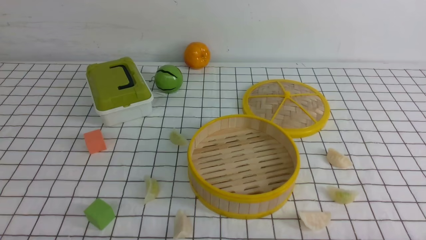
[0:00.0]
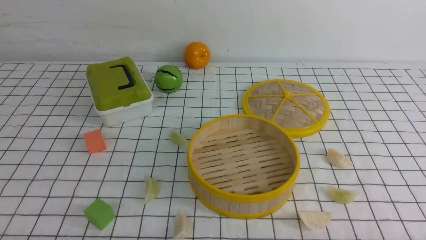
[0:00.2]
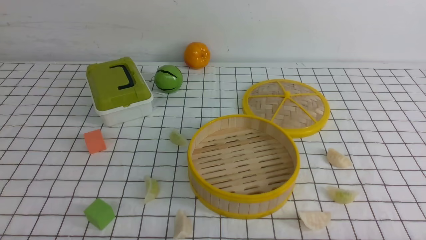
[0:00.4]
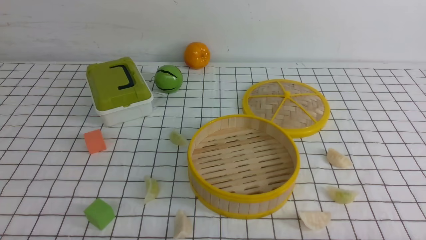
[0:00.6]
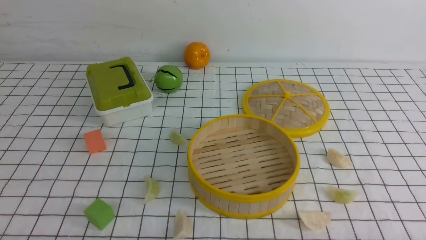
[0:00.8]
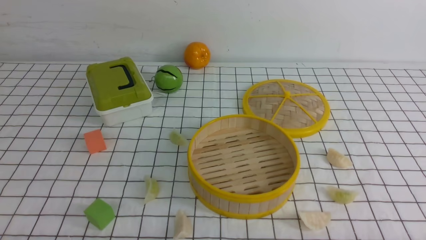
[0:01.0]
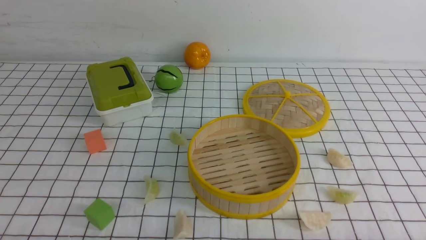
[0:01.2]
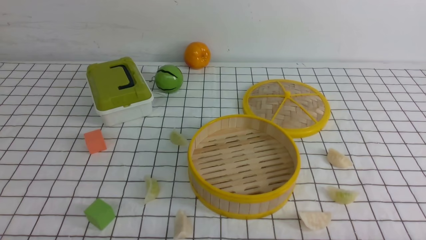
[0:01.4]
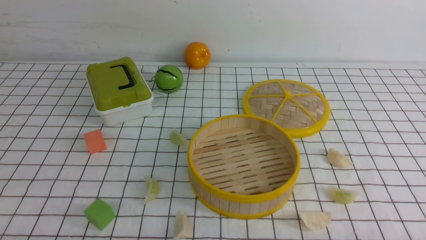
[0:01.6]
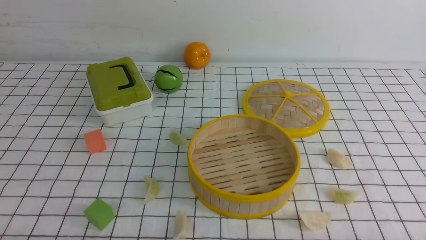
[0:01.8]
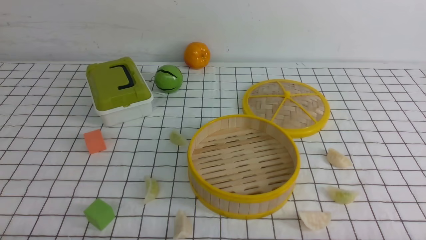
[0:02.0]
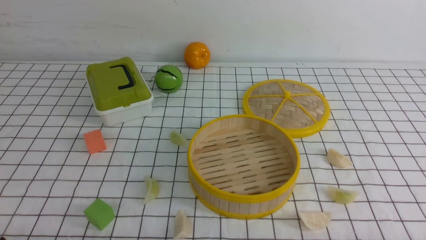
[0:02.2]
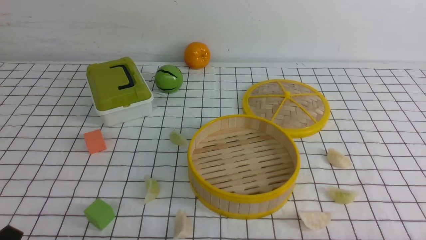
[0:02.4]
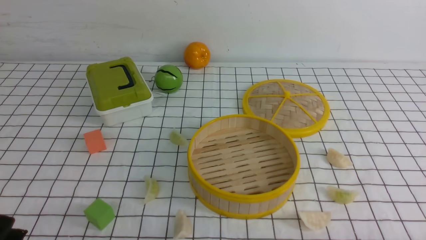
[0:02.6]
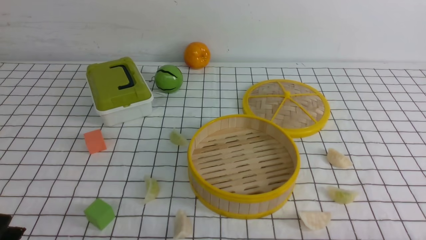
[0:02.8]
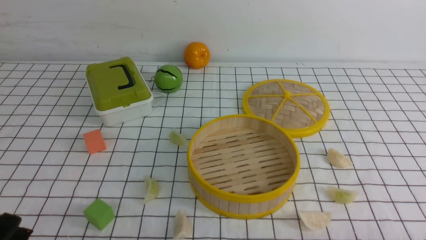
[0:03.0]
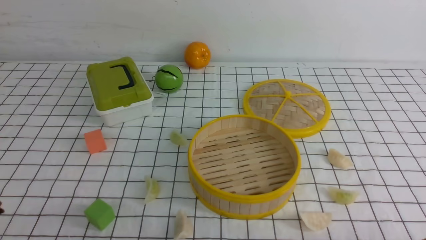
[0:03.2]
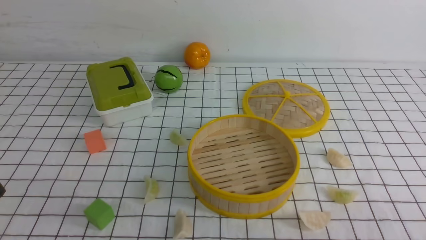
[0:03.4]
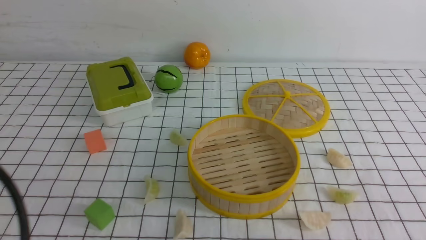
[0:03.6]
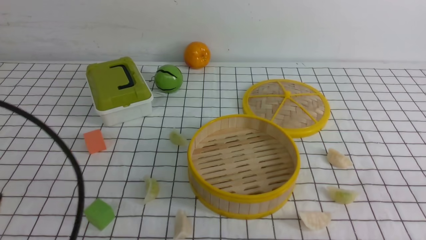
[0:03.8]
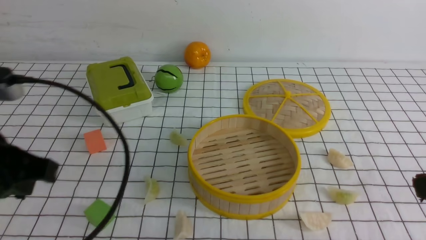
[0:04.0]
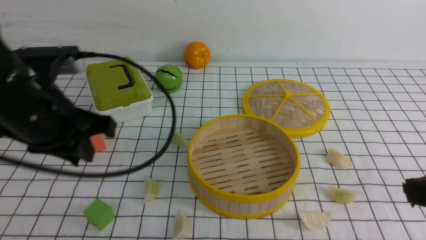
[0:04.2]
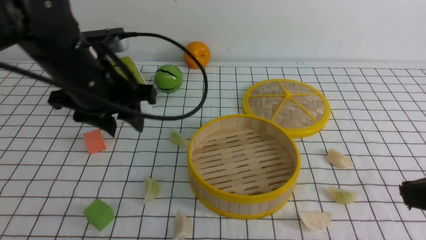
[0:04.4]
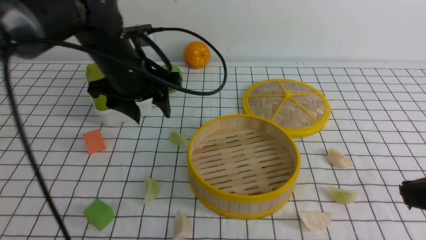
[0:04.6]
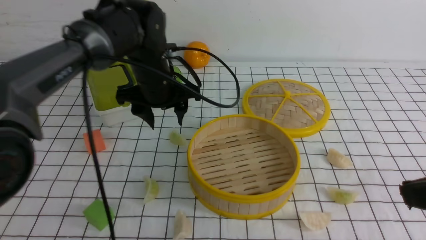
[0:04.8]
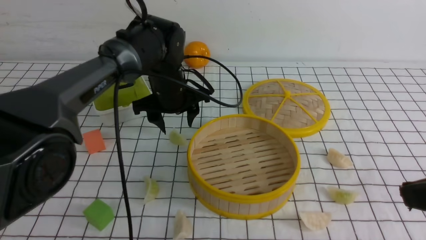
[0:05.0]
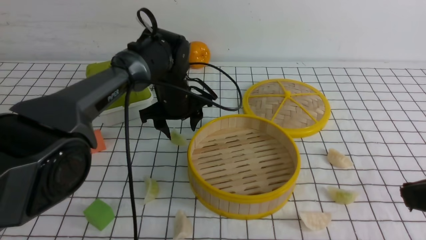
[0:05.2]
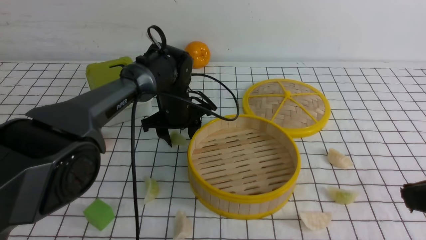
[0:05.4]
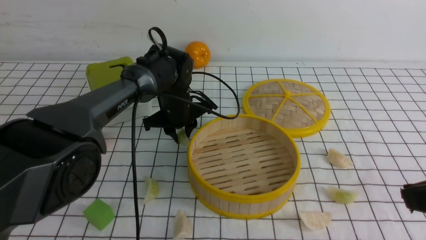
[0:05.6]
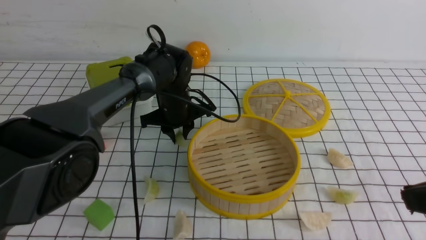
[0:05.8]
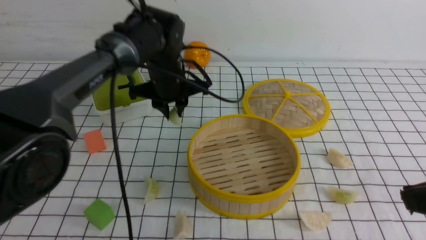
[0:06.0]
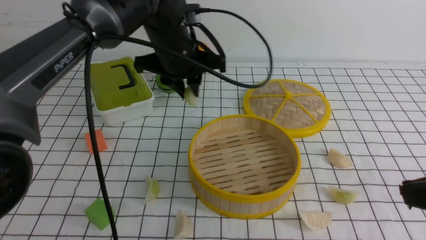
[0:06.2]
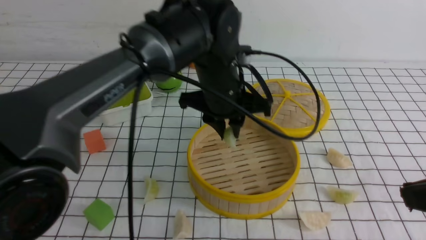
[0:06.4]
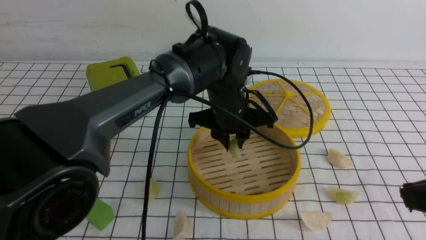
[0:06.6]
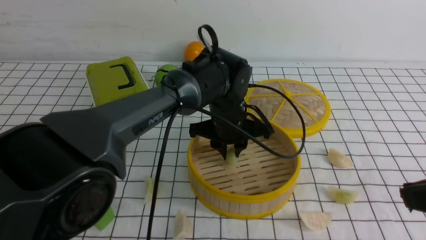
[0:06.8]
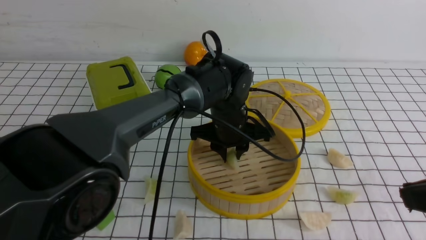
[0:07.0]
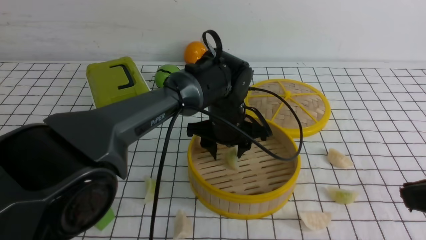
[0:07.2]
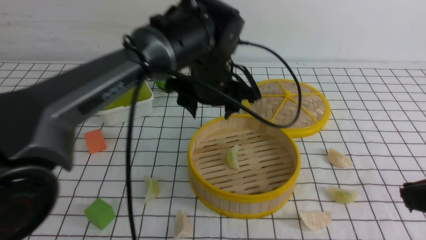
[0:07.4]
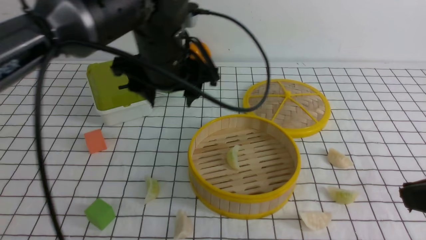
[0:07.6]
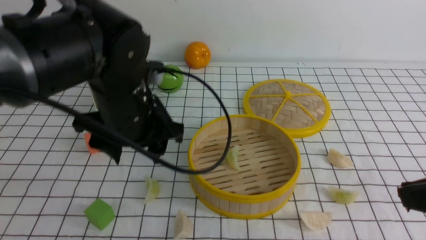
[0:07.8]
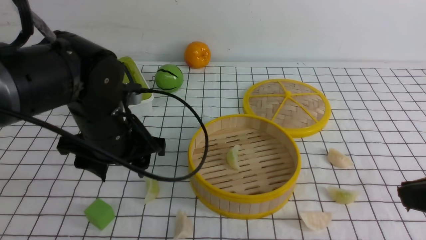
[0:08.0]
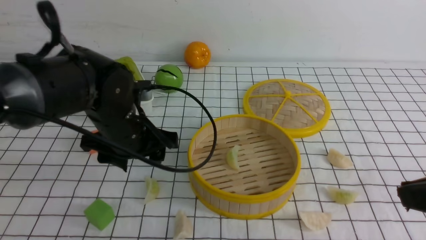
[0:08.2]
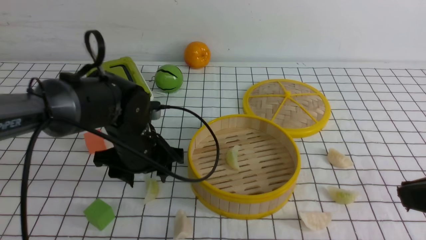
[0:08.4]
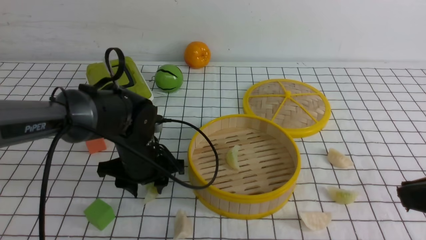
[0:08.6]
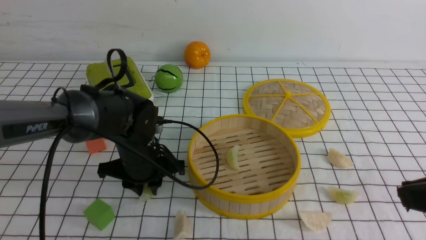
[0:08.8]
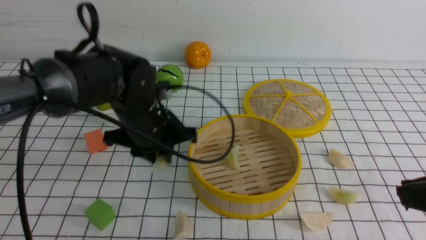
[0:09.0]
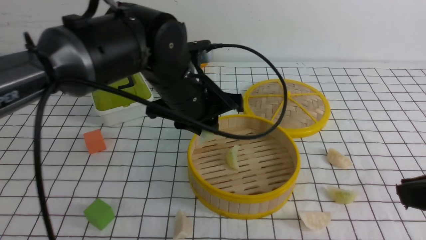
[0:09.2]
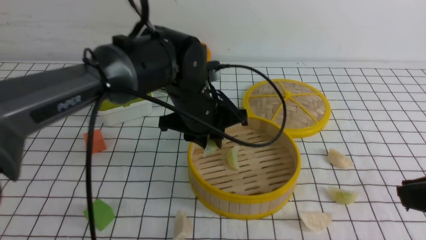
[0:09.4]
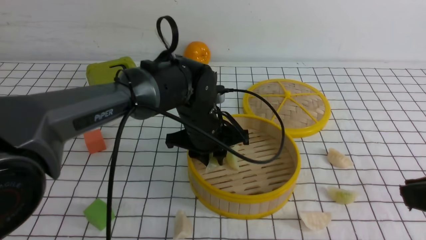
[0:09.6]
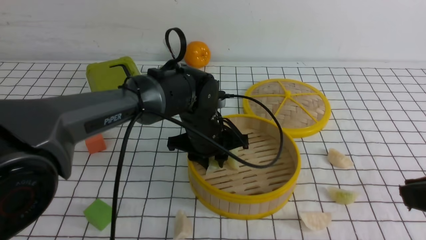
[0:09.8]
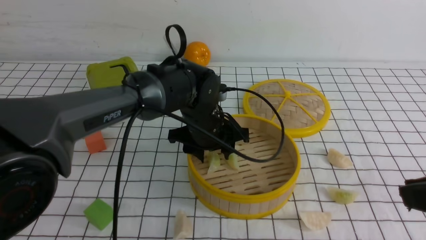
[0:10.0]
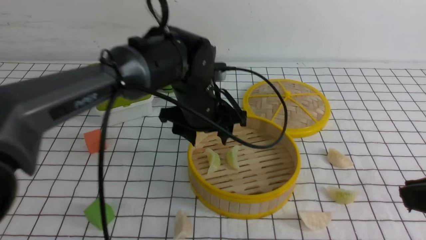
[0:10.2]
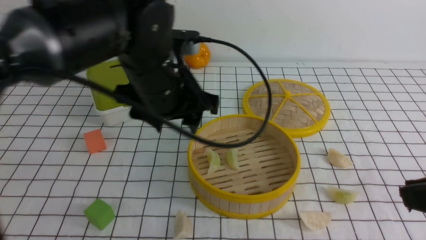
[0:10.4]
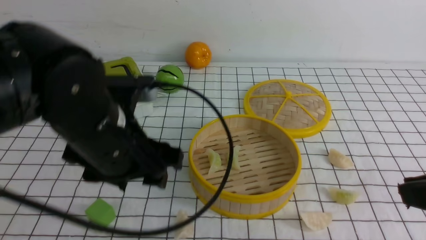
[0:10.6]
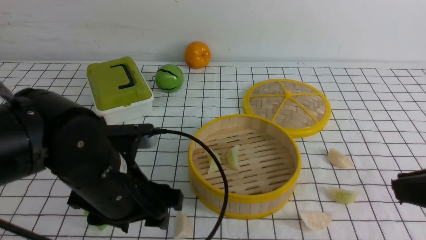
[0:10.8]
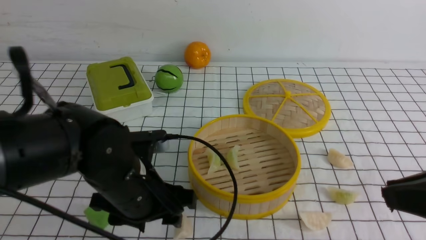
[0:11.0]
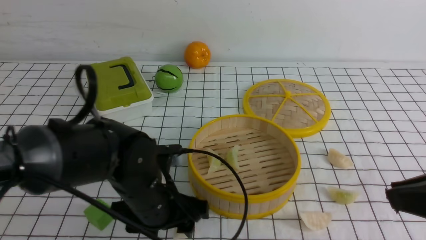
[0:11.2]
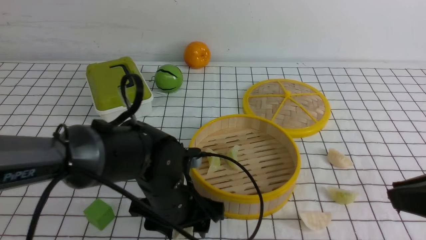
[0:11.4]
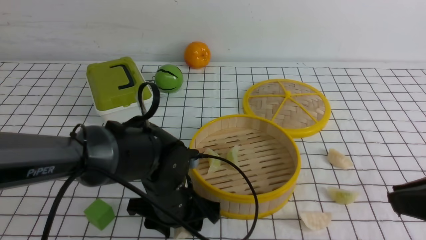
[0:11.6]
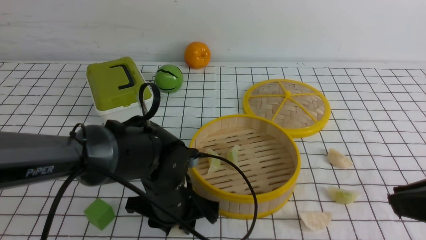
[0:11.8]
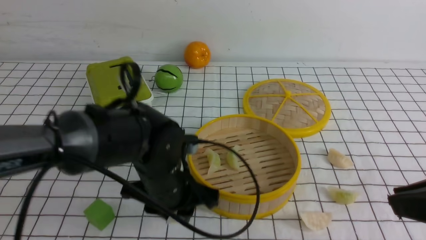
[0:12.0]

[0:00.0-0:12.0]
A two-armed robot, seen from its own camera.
Task of the whole recording: put the dumplings into the steamer on the table with the white tablecloth.
Step, 0:00.0 to 0:06.2: use the left arm to grab a dumpling.
Step, 0:06.4 to 0:07.4: use the left arm to put the dumpling into the steamer.
Step, 0:07.6 to 0:09.0: use the left arm to grab a dumpling.
Step, 0:09.2 to 0:10.6: use the left arm to put the dumpling into the steamer.
0:00.0 to 0:01.6: The two grippers keep their place.
0:01.6 to 0:03.0: The left gripper heads upward, covering approximately 5 cm.
0:03.0 to 0:04.4: The left gripper is displaced forward by some 30 cm, and closes, then reopens. The right gripper goes some 20 cm upward and forward, and closes.
0:04.4 to 0:06.0: The left gripper travels forward, to the right and downward by approximately 15 cm, and closes up.
0:06.0 to 0:07.6: The left gripper goes some 10 cm backward and upward, and opens.
0:07.6 to 0:09.0: The left gripper goes some 10 cm downward, and closes up.
0:09.0 to 0:10.4: The left gripper shifts some 5 cm upward, and opens up.
0:10.4 to 0:12.0: The left gripper moves downward, about 10 cm, and closes its fingers.

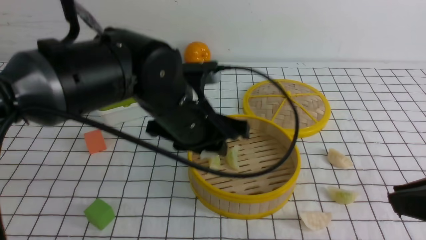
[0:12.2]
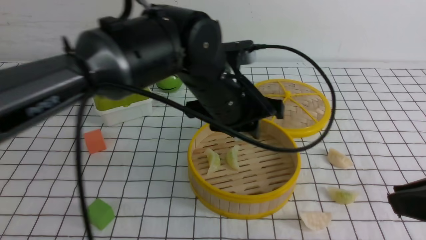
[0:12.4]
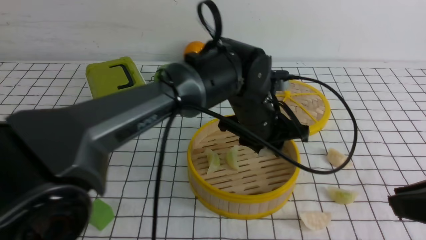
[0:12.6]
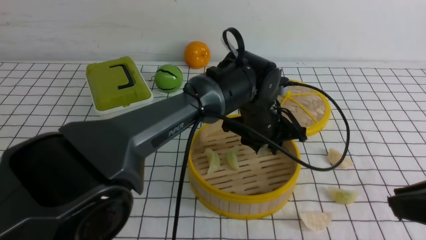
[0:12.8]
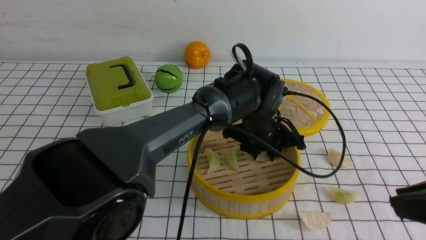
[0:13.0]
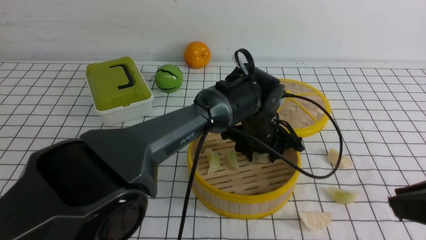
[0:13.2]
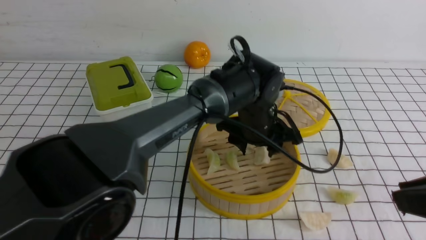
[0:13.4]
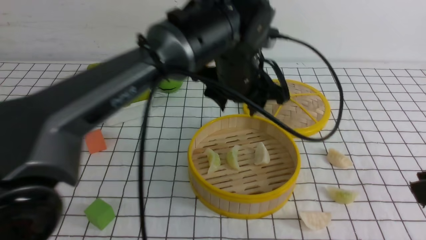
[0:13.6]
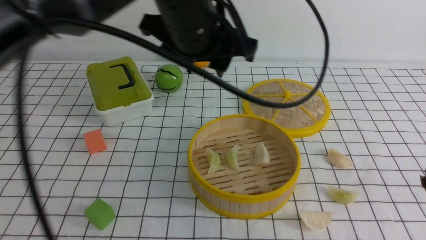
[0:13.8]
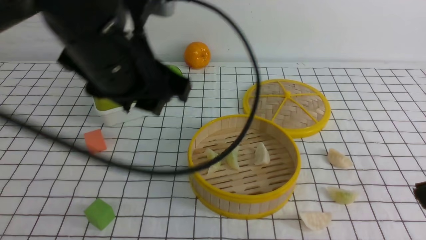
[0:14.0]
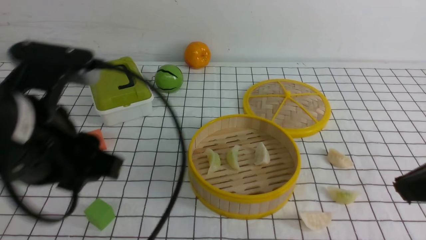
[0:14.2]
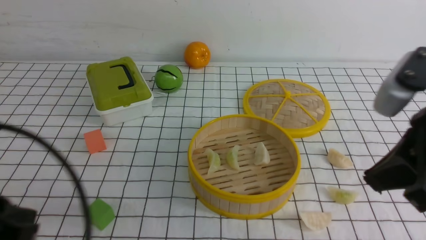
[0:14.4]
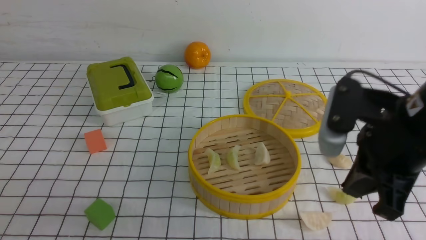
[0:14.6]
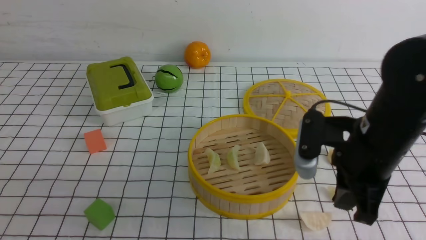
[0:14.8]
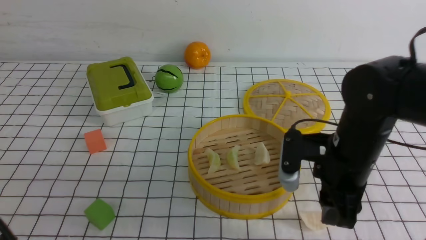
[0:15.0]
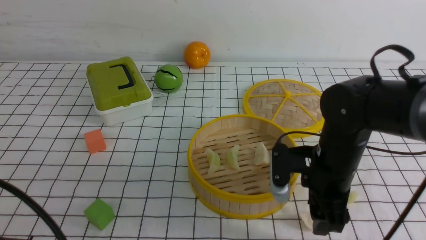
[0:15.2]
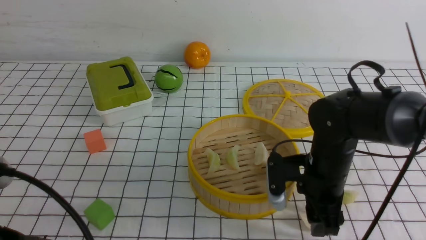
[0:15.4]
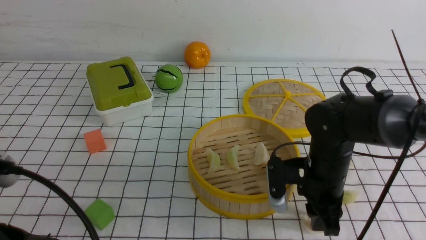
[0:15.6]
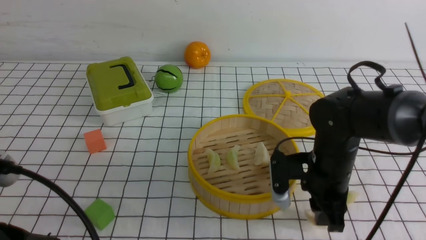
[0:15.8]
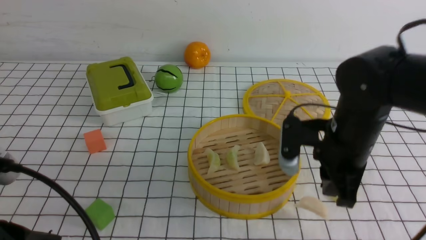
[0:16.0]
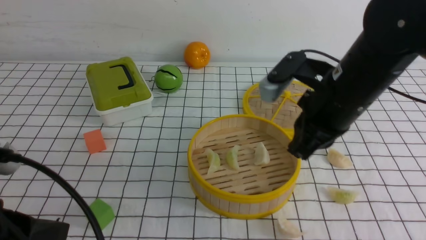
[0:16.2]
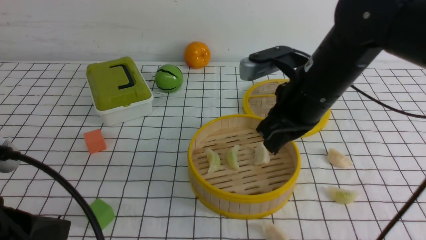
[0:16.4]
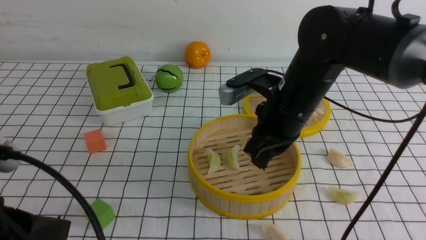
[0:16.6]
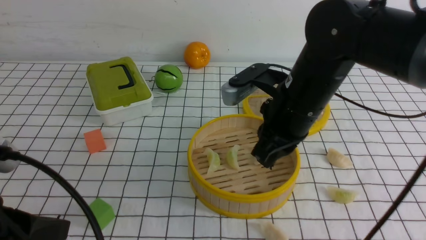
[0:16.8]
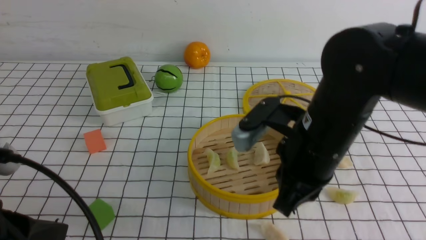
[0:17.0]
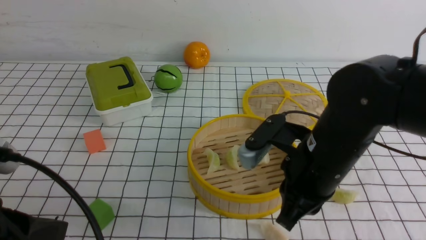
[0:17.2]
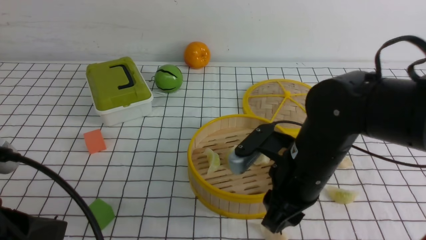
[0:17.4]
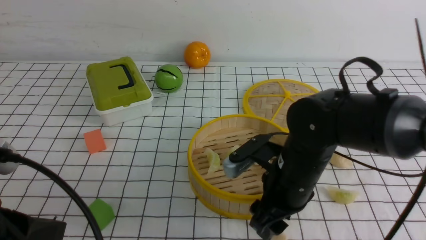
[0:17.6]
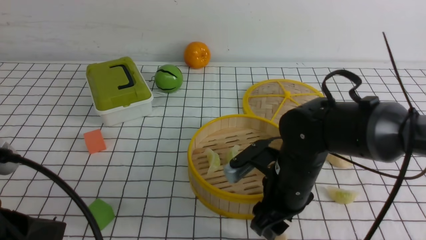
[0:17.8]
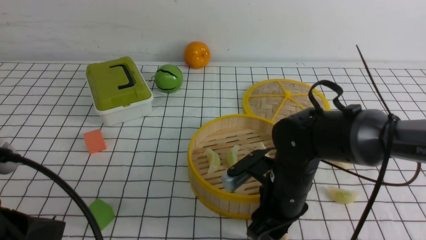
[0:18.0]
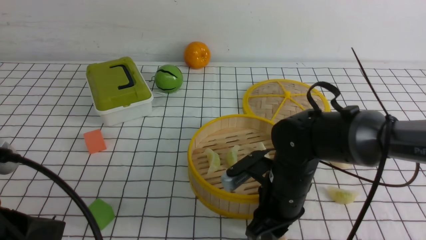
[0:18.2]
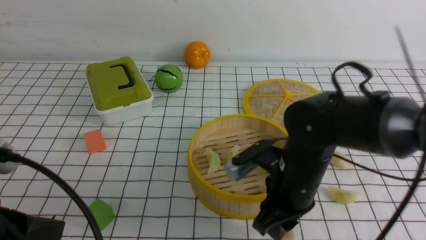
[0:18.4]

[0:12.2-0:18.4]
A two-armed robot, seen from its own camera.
Task of the whole recording: put the dumplings into the steamer on the table with the white tablecloth.
Step, 0:12.6 to 0:13.4: use the left arm to put the dumpling into the steamer.
0:12.2 to 0:13.8: The left gripper goes roughly 10 cm upward.
0:13.8 to 0:15.4: The left gripper moves backward, to the left and downward, some 30 cm, and closes. Meanwhile the right gripper travels downward, forward and to the left by roughly 30 cm, and opens its fingers.
0:15.4 to 0:16.8: The right gripper goes some 15 cm upward and to the left, and closes.
0:16.8 to 0:18.4: The right gripper shifts some 5 cm downward, and opens up.
